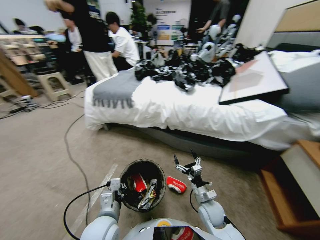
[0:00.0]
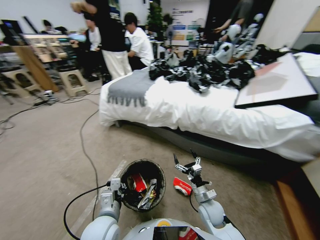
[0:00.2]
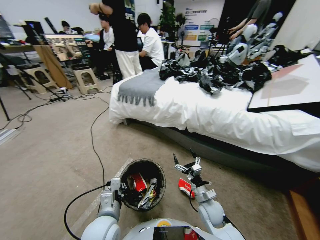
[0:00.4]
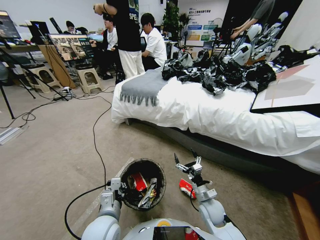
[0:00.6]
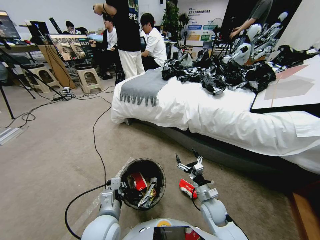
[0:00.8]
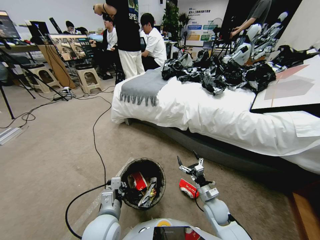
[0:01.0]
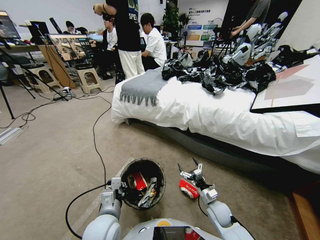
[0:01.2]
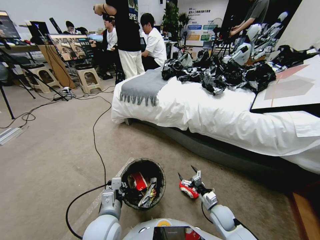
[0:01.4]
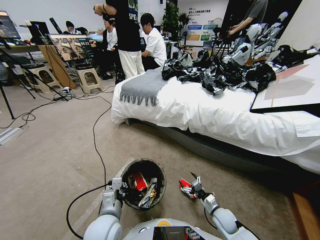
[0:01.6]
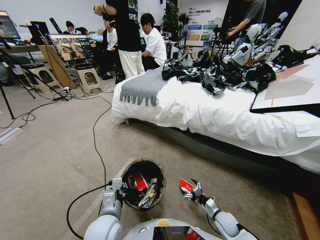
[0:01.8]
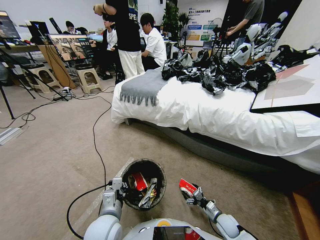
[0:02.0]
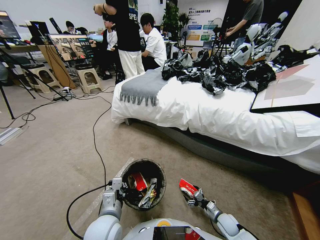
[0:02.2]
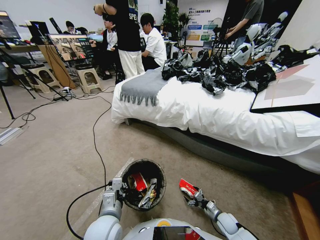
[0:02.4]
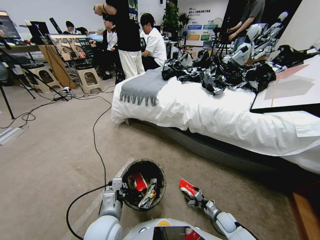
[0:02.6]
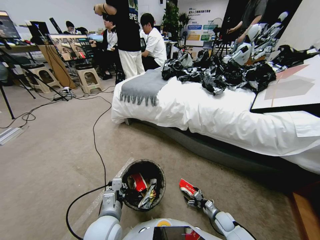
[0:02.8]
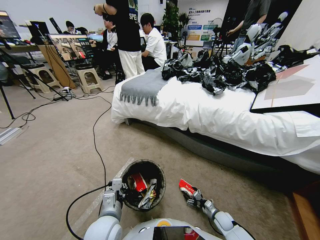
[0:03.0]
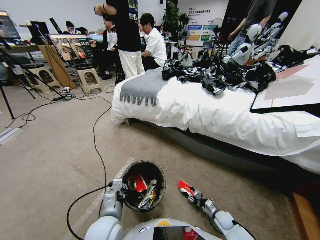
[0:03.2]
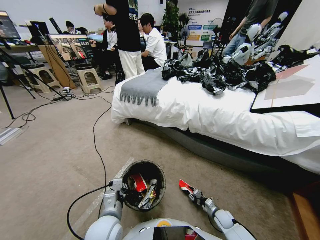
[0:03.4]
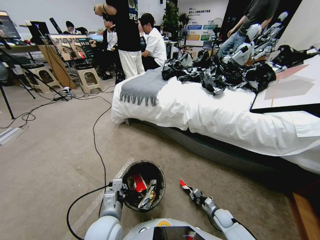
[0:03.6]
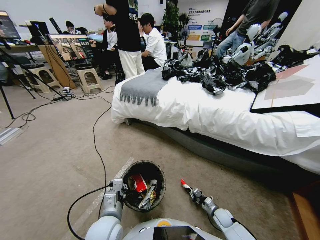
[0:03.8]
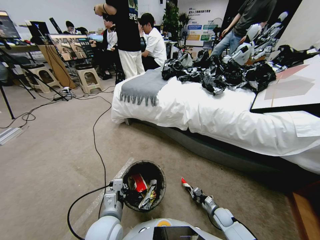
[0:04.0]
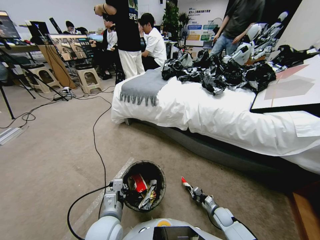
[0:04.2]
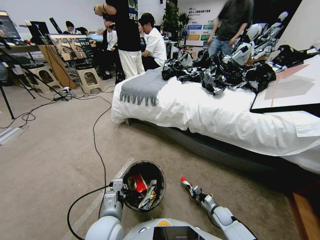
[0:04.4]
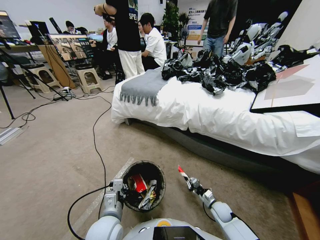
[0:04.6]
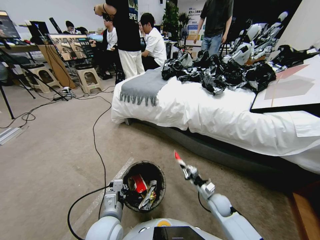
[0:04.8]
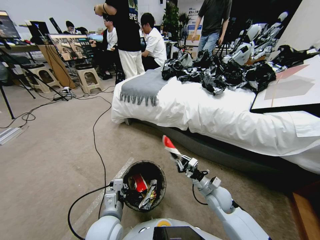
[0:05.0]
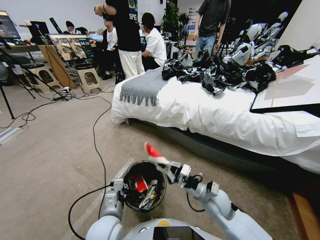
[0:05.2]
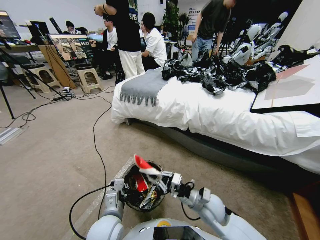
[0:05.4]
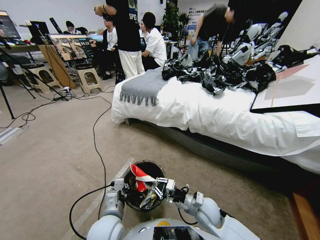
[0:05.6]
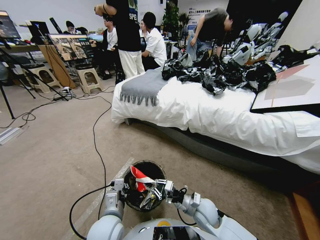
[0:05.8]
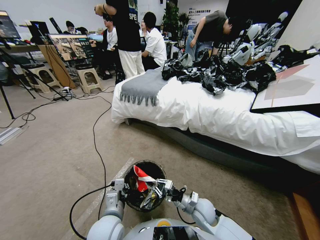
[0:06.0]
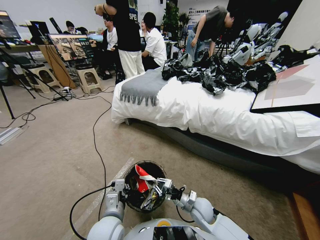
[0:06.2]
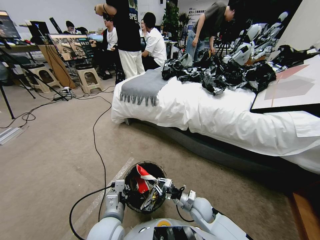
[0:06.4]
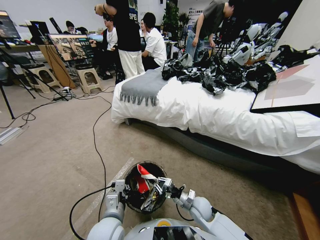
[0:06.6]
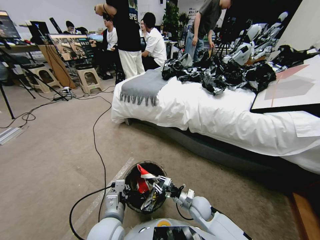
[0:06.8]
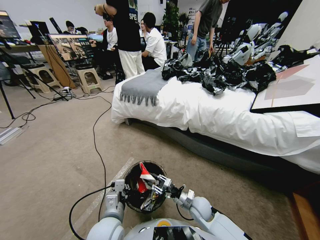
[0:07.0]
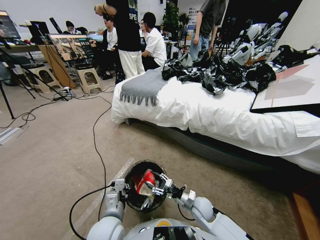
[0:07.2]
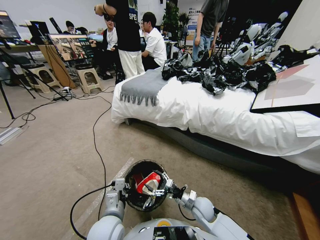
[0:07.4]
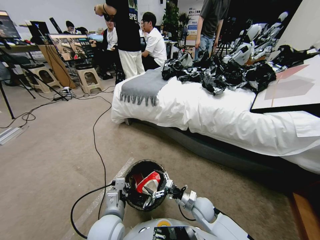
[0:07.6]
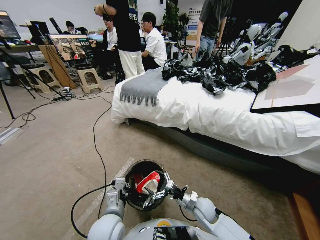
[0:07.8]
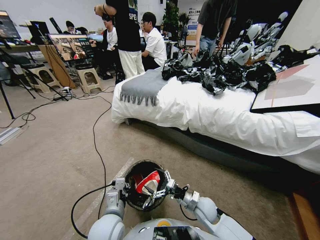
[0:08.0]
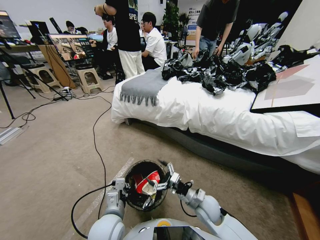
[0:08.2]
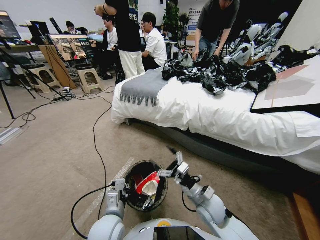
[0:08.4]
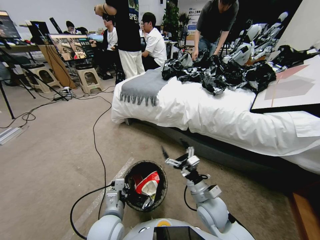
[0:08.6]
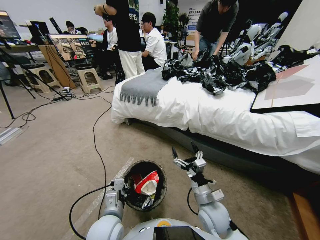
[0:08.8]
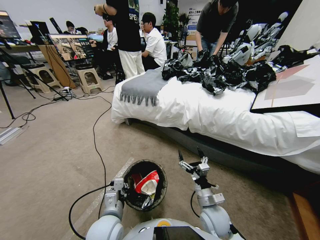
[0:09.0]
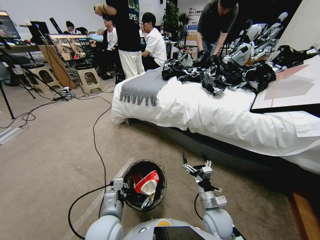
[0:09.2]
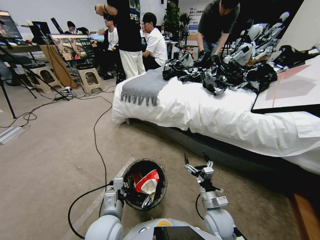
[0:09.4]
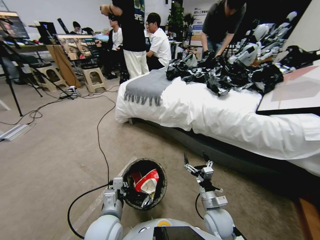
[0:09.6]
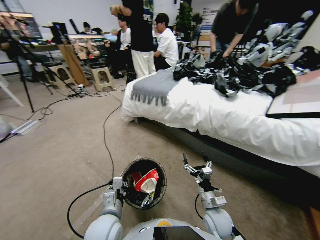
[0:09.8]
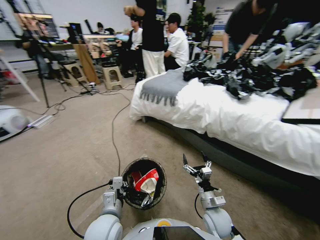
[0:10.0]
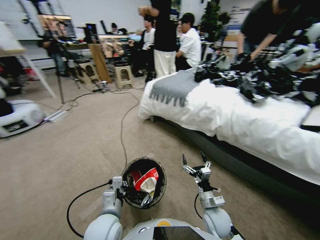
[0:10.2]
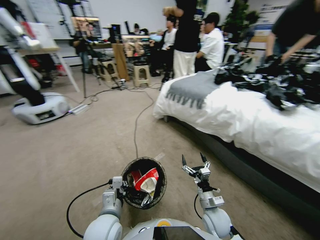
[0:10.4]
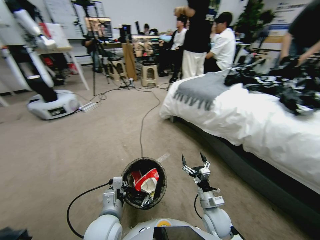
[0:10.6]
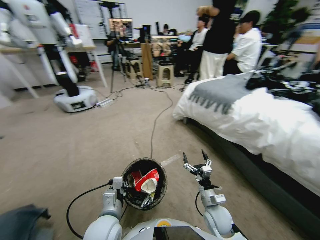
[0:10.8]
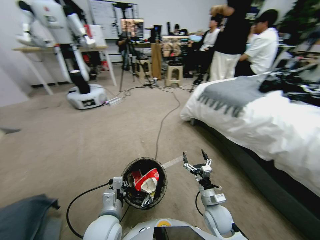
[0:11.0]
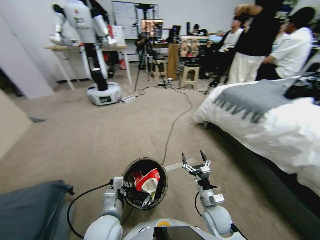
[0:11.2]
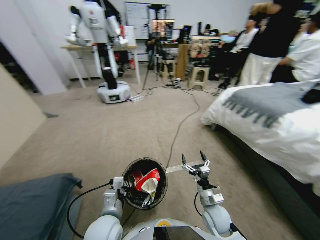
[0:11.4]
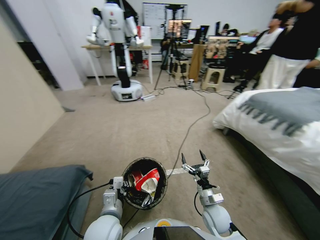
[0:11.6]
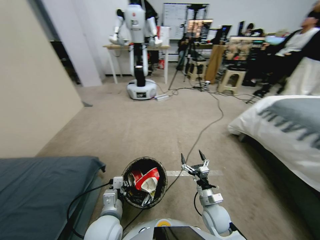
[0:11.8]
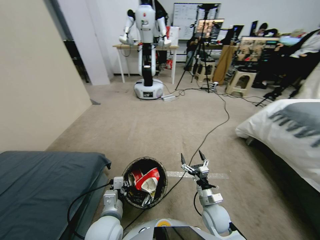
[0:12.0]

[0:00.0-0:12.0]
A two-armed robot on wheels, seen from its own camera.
Task of the whole recording: Pick up the trash bin, then pick up the garbage from the floor and place it into the trash bin.
0:00.0 to 0:01.6: The right gripper travels downward and to the right by about 15 cm.
0:01.6 to 0:03.0: The right gripper shifts approximately 10 cm downward.
0:03.0 to 0:04.4: The right gripper changes place by about 5 cm, and closes.
0:04.4 to 0:06.0: The right gripper travels to the left and upward by some 20 cm.
0:06.0 to 0:07.6: The right gripper opens up.
0:07.6 to 0:09.0: The right gripper goes some 5 cm upward.

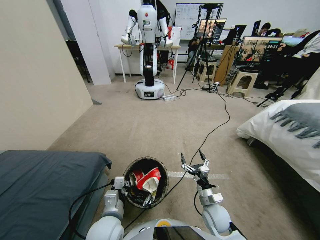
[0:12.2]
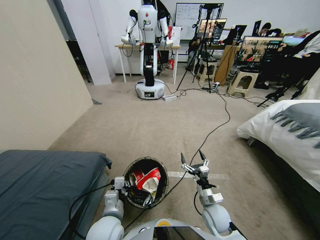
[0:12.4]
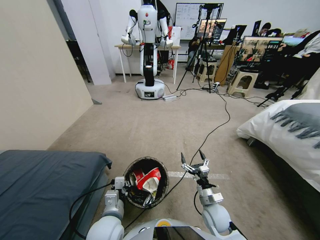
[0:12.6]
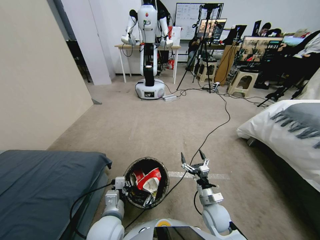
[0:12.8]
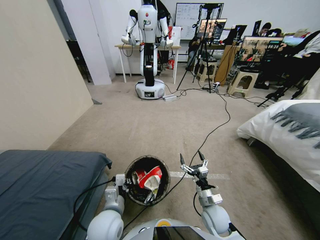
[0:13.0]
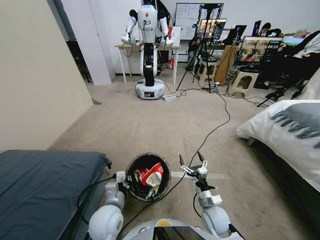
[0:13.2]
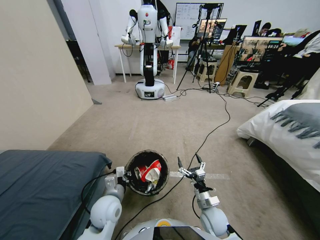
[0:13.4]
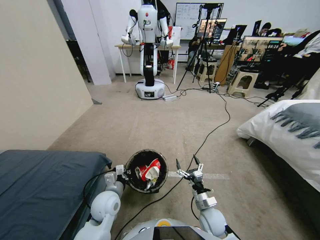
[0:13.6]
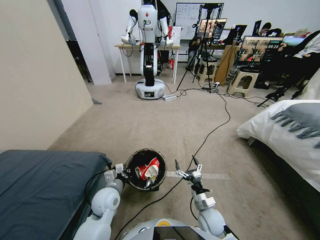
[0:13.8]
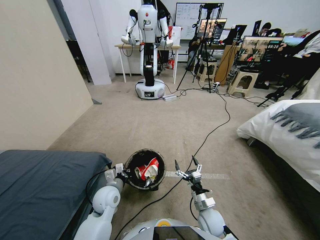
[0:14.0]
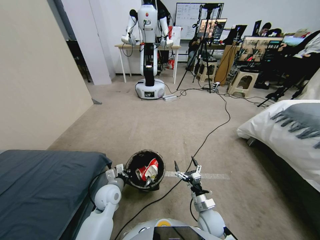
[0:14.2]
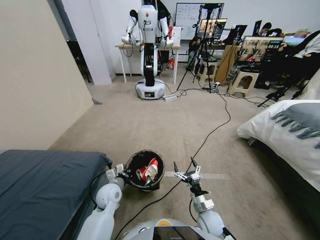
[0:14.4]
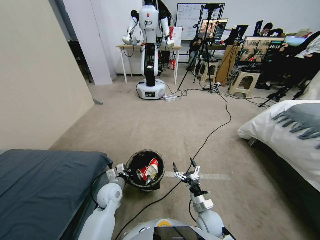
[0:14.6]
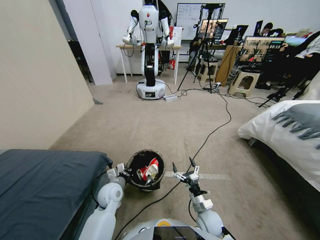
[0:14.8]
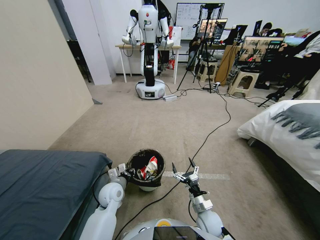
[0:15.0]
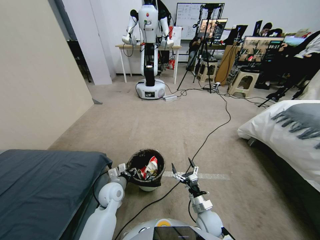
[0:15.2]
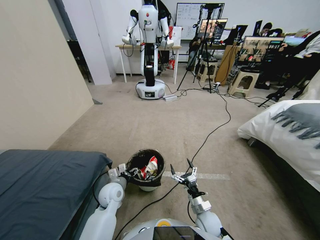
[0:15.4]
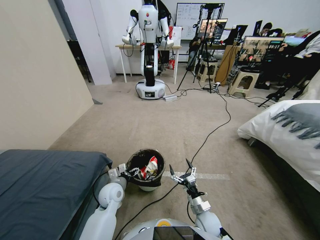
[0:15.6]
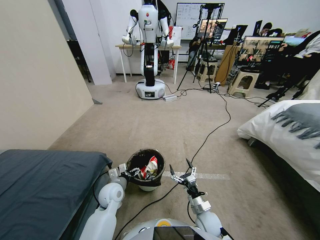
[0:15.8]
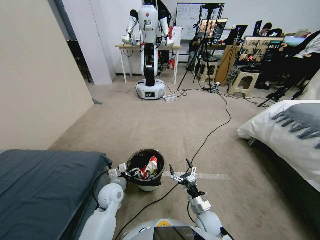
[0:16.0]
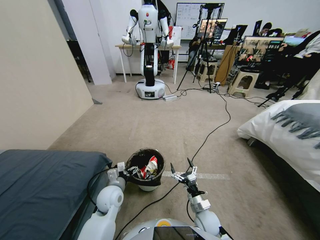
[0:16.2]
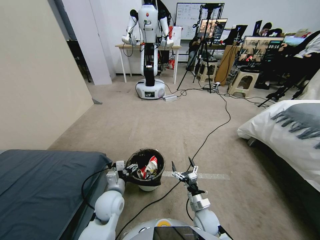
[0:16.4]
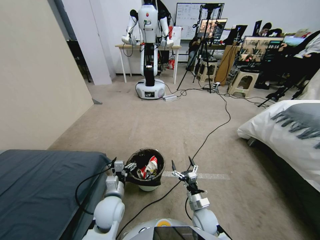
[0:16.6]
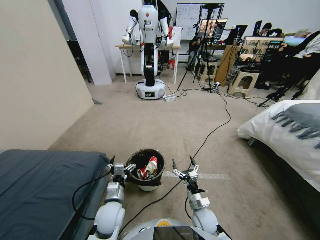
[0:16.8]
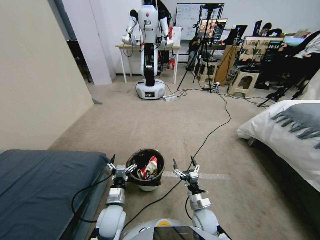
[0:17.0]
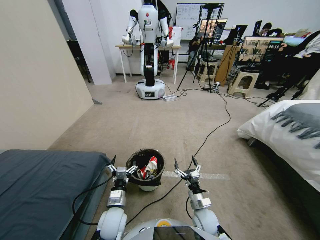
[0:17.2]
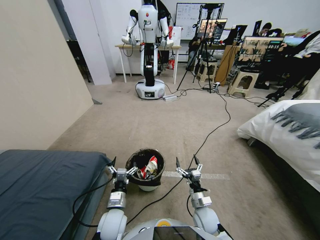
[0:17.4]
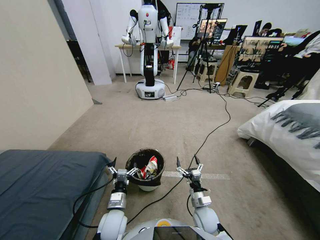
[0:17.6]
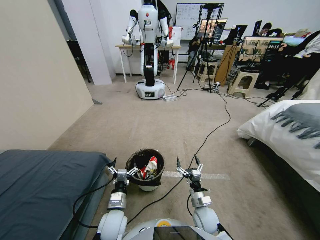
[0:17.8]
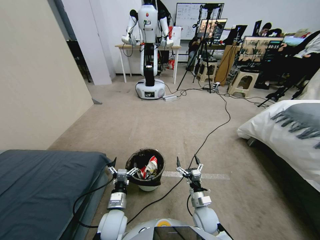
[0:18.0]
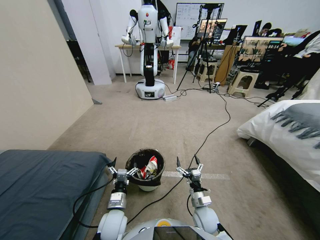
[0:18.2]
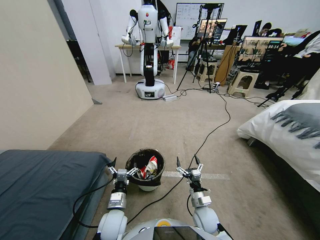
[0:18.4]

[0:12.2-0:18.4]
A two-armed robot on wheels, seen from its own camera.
Task of the whole recording: Pick up the trash bin, then pick up the garbage from the floor and place it into the trash bin.
0:12.2 to 0:13.8: The left gripper goes about 10 cm forward.
0:13.8 to 0:15.4: The left gripper opens up.
0:15.4 to 0:16.8: The left gripper shifts about 10 cm backward.
0:16.8 to 0:18.4: There are only small adjustments of the grippers.
